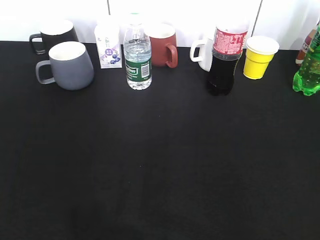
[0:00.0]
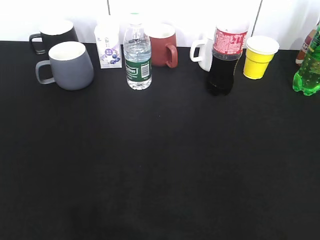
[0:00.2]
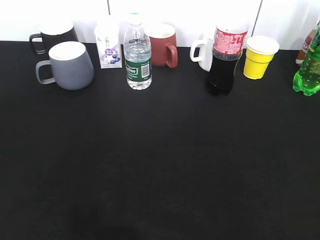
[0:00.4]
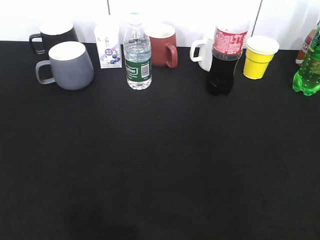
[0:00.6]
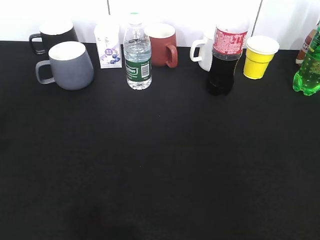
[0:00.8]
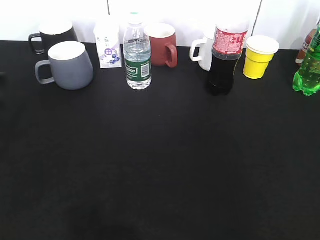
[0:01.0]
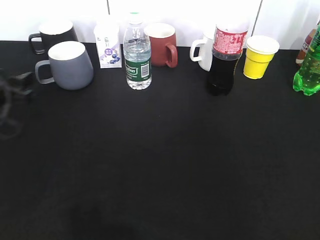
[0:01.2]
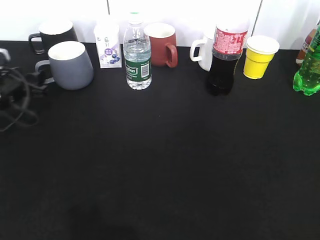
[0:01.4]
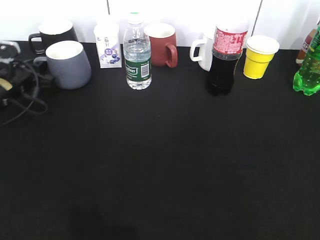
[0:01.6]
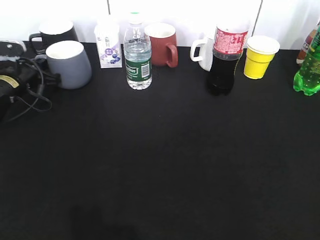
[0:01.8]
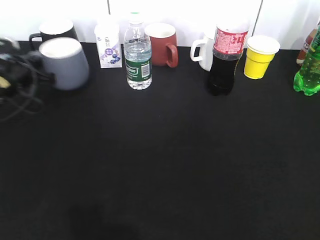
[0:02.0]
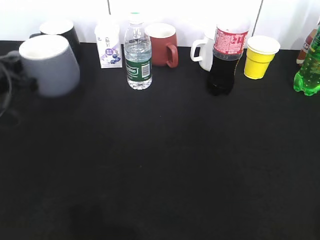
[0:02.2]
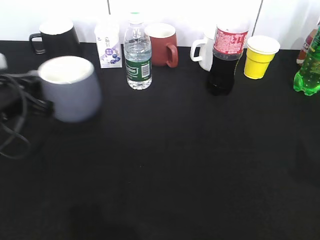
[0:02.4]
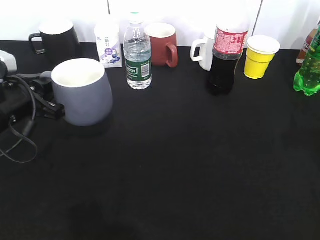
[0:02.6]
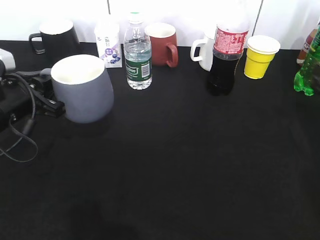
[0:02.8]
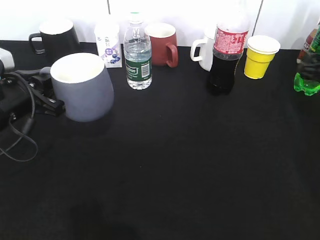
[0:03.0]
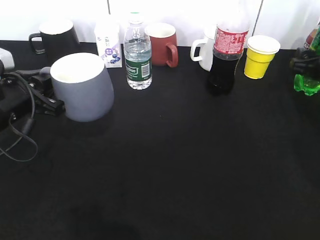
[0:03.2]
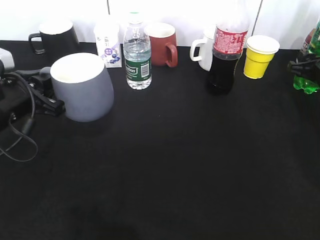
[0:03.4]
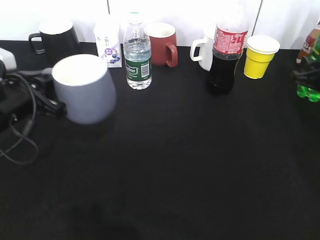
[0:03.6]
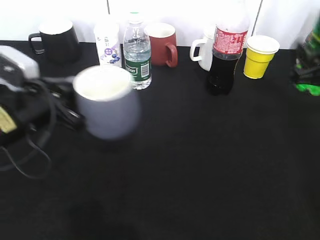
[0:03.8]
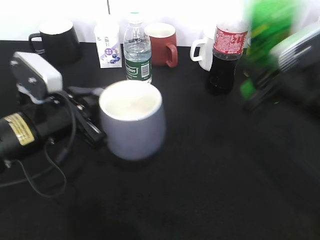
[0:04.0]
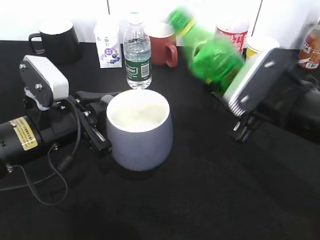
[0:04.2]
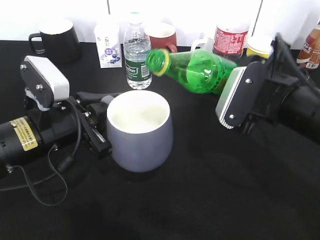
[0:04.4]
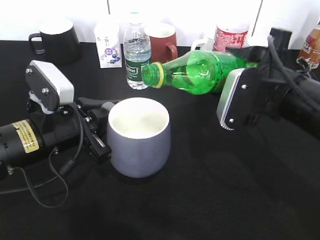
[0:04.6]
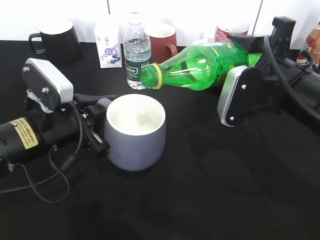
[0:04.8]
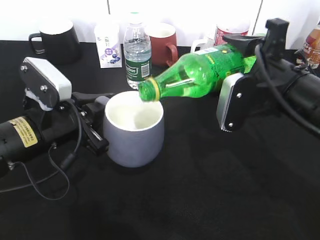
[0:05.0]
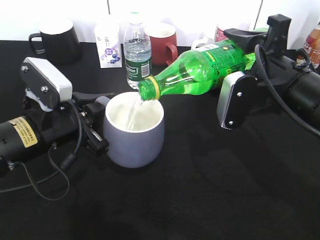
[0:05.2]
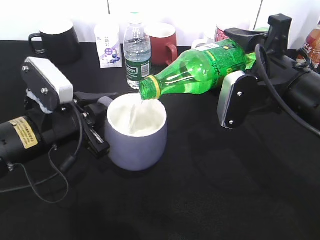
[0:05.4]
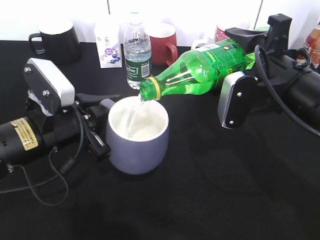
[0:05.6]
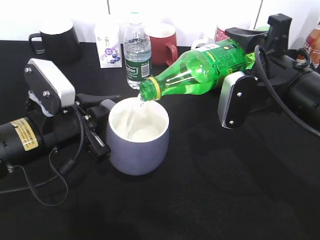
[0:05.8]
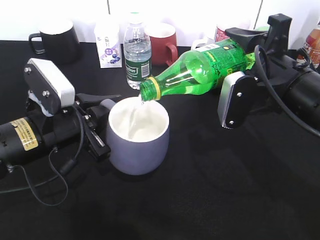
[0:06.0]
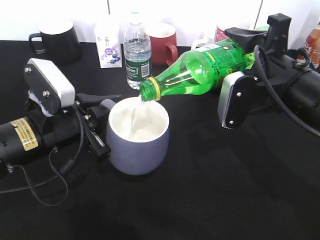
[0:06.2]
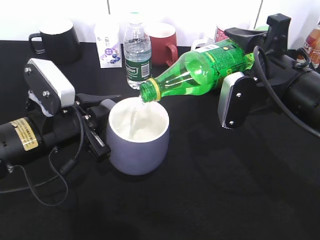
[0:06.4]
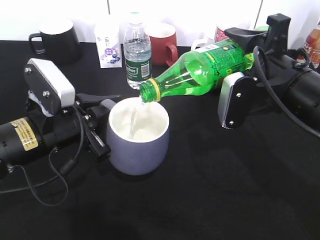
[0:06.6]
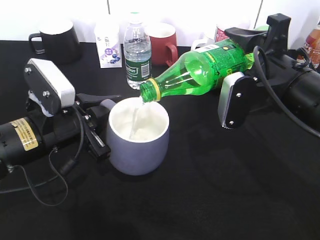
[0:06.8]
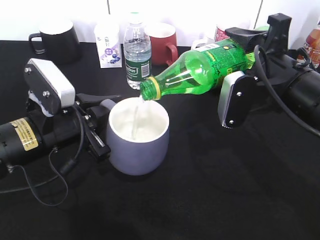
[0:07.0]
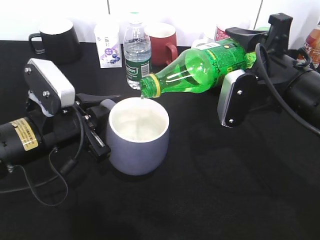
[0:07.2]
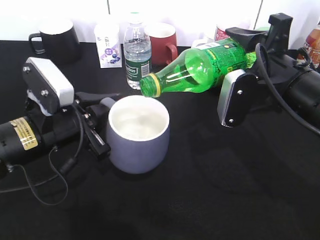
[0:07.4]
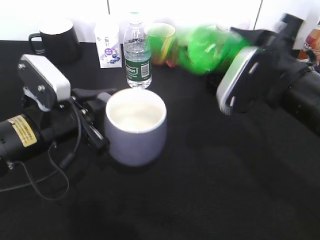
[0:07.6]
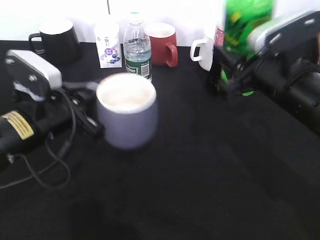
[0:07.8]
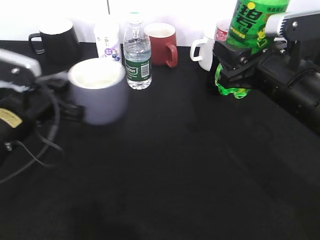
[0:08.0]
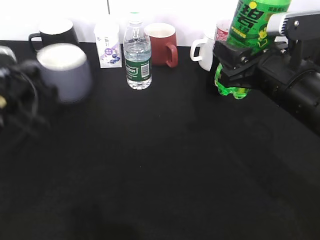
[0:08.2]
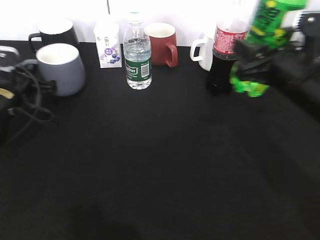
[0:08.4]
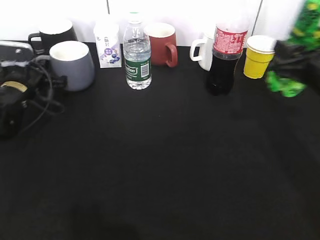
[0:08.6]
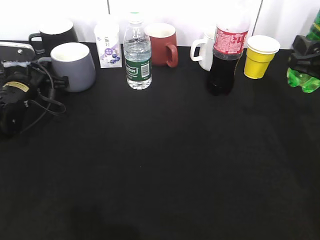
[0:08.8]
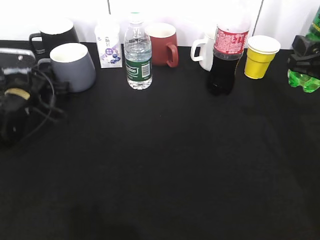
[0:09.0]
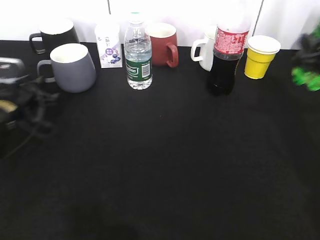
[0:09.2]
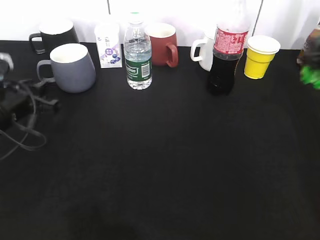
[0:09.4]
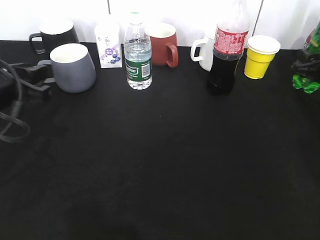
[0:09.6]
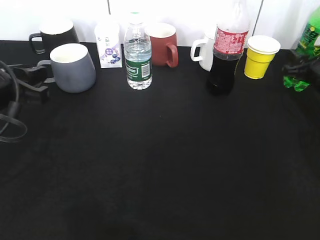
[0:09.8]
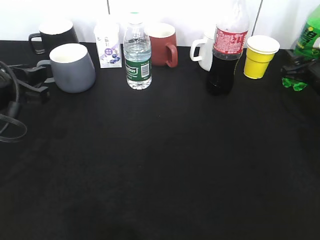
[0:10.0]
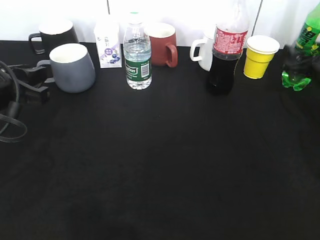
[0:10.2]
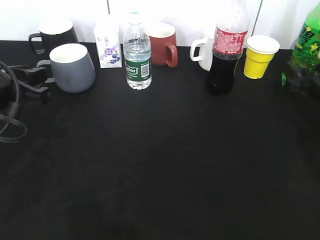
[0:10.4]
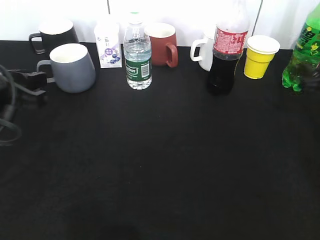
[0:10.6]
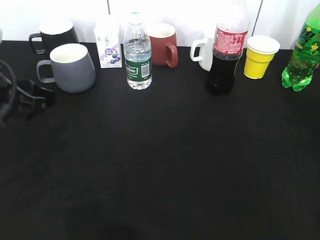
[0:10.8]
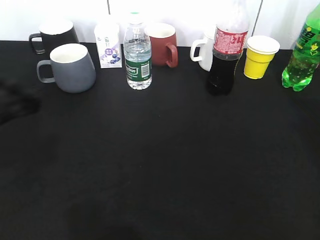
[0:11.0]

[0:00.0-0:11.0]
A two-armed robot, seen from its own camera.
Step, 0:00.0 to 0:01.8: Grasp the grey cup with left gripper.
Step, 0:02.0 to 0:02.6: Lift the grey cup with left gripper.
Step, 0:02.8 to 0:03.4: Grasp the bottle with sprite with right gripper.
Step, 0:03.6 to 0:07.4: Pour the sprite from bottle to cup with right gripper.
Step, 0:07.6 to 0:10.6: Place the sprite bottle on the table with right gripper.
0:00.0 to 0:01.6: The left gripper travels forward and downward by roughly 40 cm, and closes up.
0:01.6 to 0:03.2: The right gripper shifts roughly 40 cm forward; the left gripper moves backward, to the right and upward, some 15 cm.
0:03.2 to 0:04.8: The right gripper shifts roughly 25 cm to the left, backward and upward, and closes up; the left gripper goes approximately 5 cm to the right.
0:04.8 to 0:06.2: The grippers stay close to where they were, moving slightly.
0:07.8 to 0:09.4: The left gripper travels to the left by roughly 5 cm, goes forward and returns, about 15 cm each way, and opens up; the right gripper goes some 15 cm to the right and forward.
0:09.4 to 0:11.0: Both grippers move upward and backward, roughly 15 cm. The right gripper opens up.

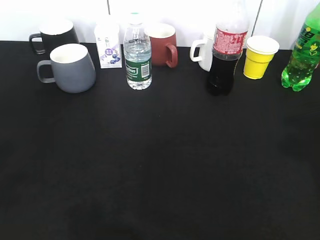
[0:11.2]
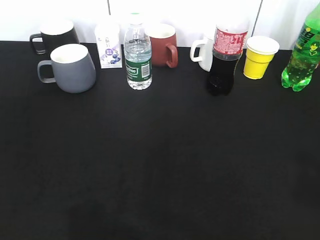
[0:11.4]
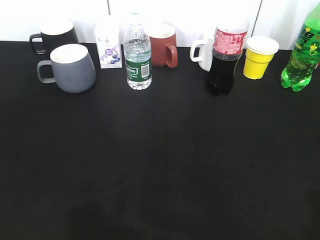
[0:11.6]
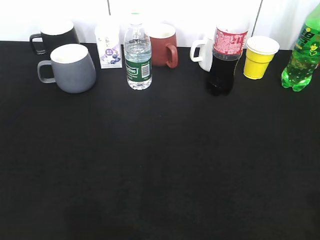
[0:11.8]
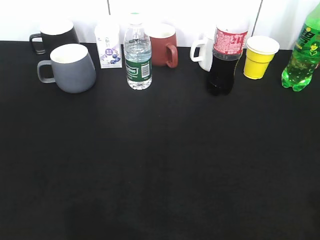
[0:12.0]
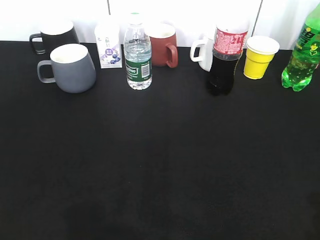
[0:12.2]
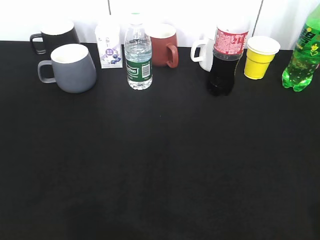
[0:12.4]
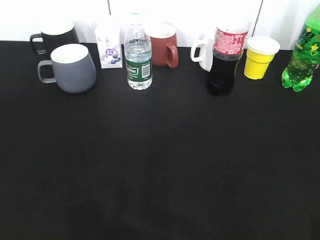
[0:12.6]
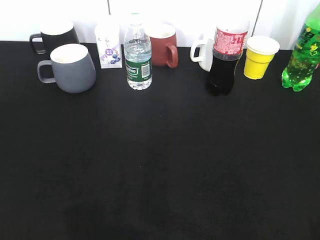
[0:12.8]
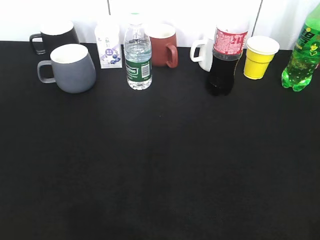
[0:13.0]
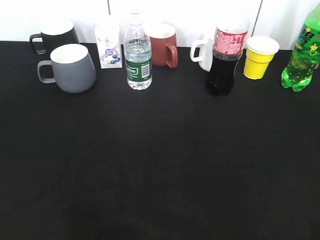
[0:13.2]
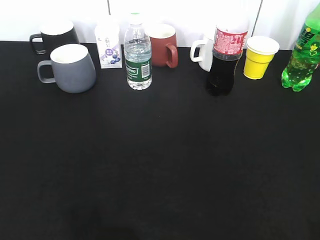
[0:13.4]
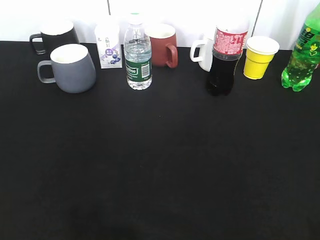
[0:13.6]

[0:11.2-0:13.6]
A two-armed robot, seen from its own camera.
0:11.2 to 0:12.4: The left gripper heads backward, covering some 10 cm, while the right gripper shifts some 15 cm backward.
0:12.4 to 0:13.6: There are only small adjustments of the grippers.
